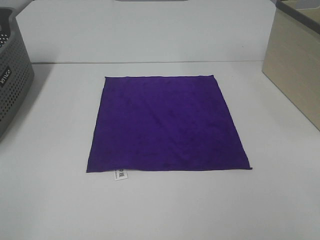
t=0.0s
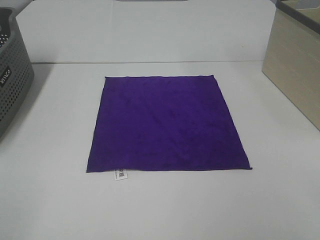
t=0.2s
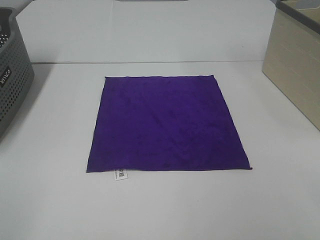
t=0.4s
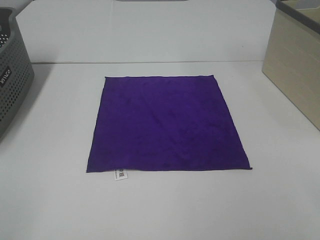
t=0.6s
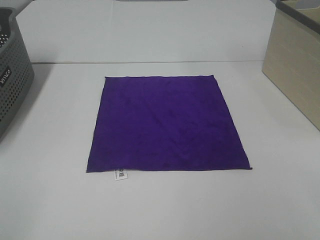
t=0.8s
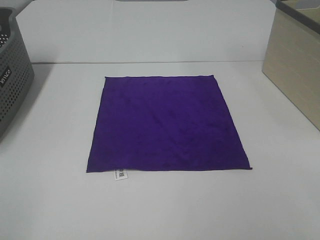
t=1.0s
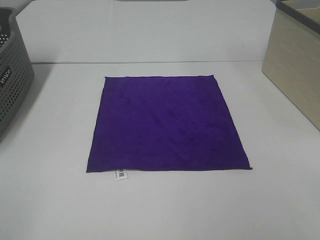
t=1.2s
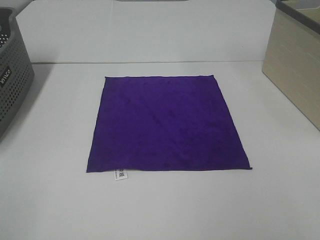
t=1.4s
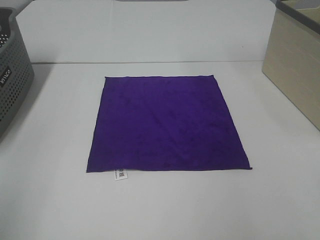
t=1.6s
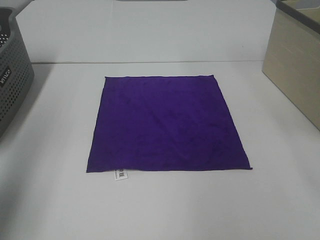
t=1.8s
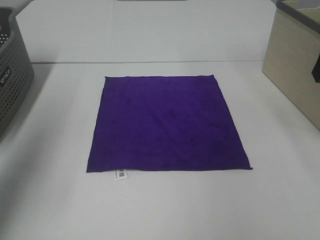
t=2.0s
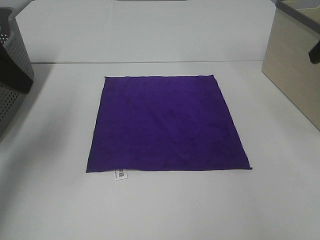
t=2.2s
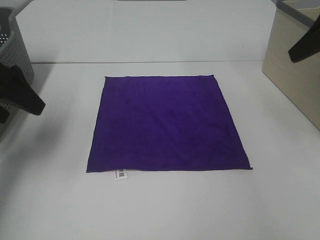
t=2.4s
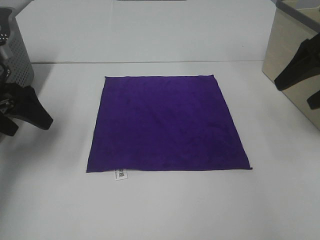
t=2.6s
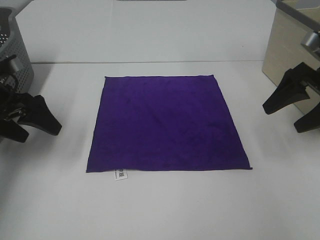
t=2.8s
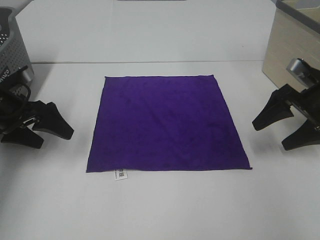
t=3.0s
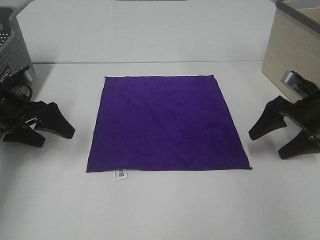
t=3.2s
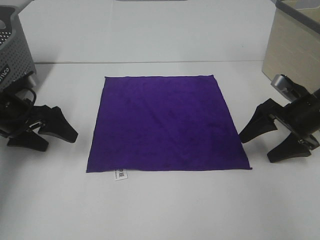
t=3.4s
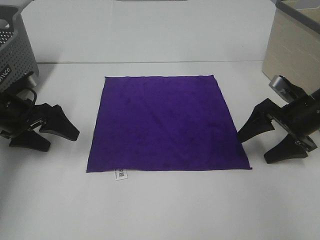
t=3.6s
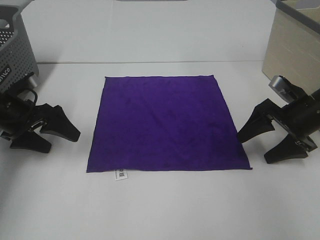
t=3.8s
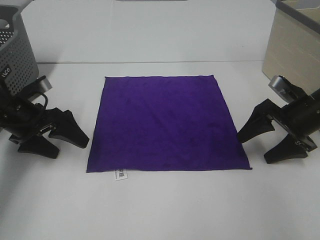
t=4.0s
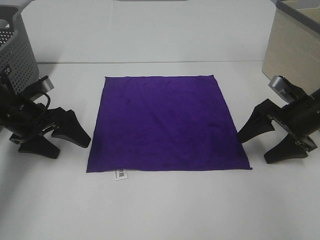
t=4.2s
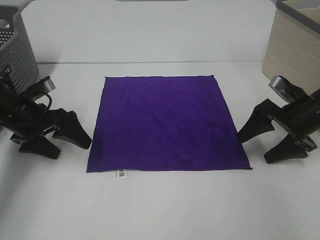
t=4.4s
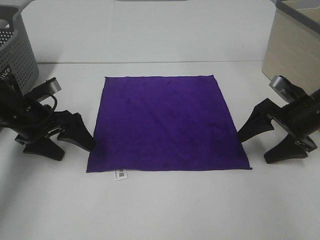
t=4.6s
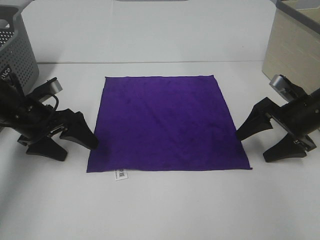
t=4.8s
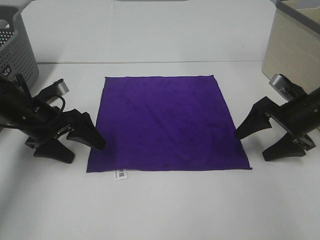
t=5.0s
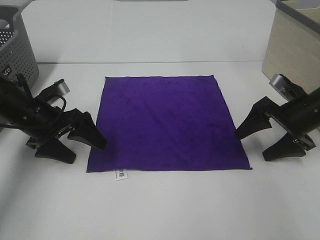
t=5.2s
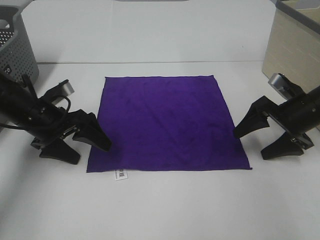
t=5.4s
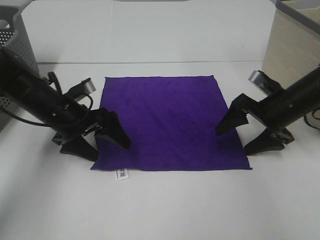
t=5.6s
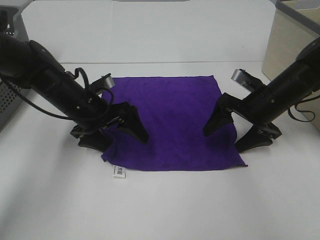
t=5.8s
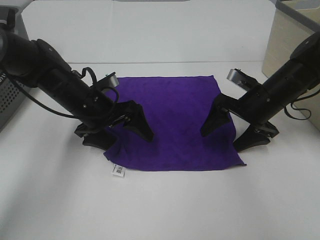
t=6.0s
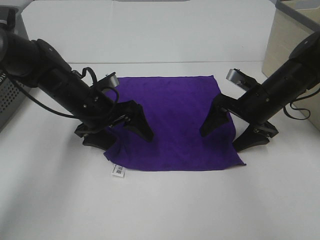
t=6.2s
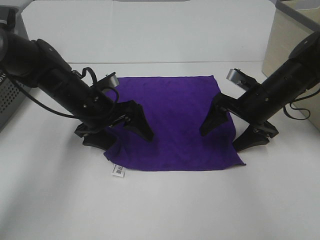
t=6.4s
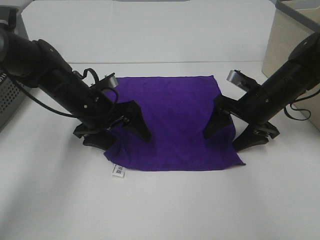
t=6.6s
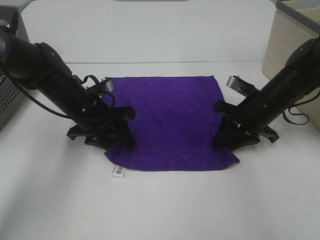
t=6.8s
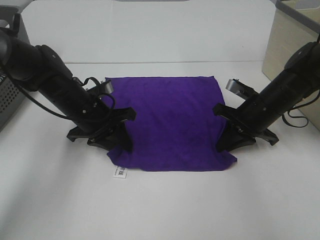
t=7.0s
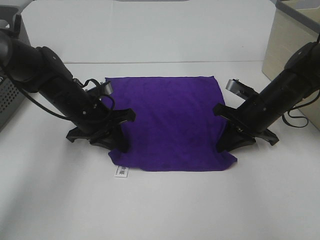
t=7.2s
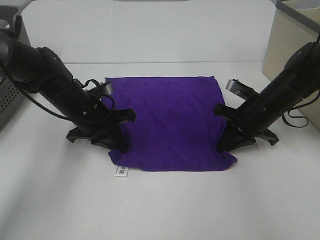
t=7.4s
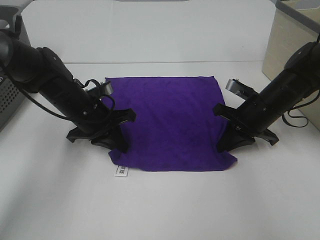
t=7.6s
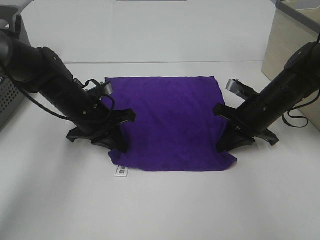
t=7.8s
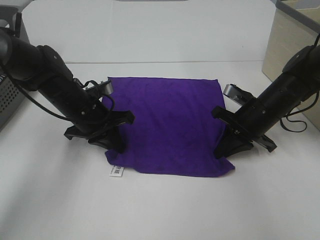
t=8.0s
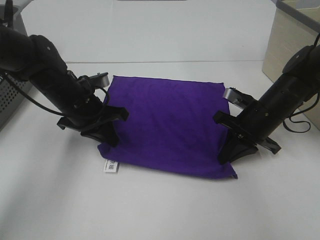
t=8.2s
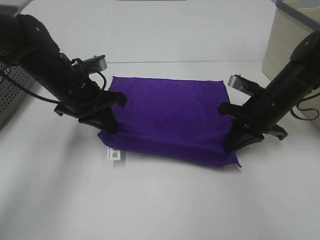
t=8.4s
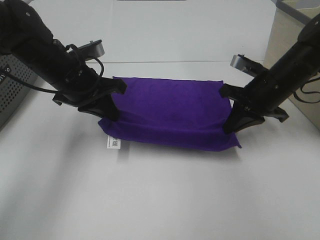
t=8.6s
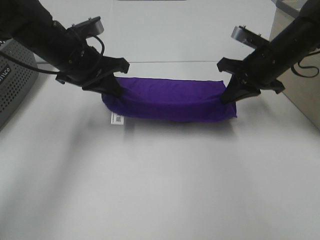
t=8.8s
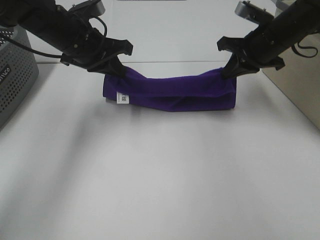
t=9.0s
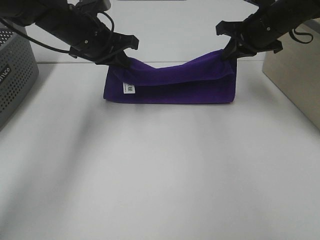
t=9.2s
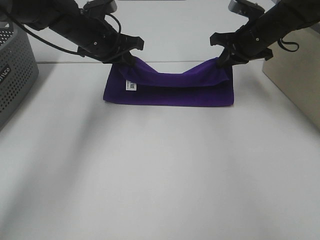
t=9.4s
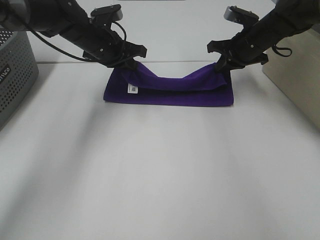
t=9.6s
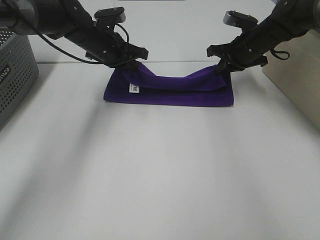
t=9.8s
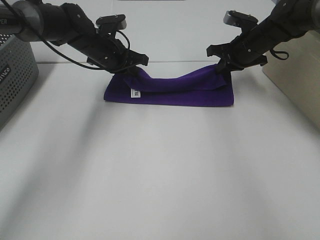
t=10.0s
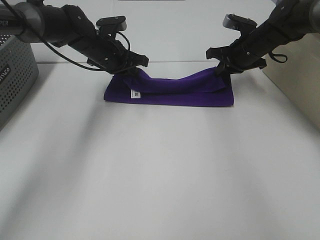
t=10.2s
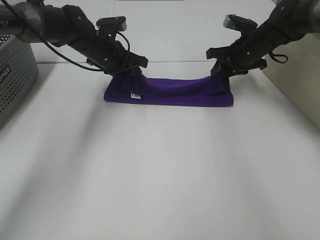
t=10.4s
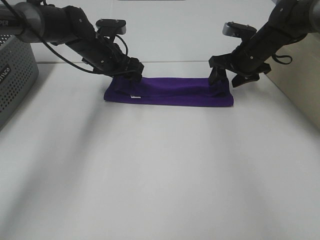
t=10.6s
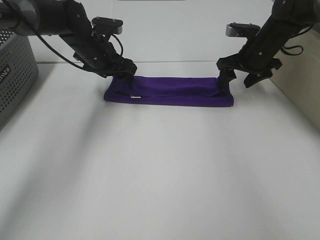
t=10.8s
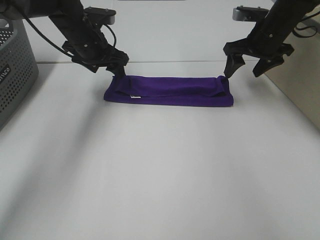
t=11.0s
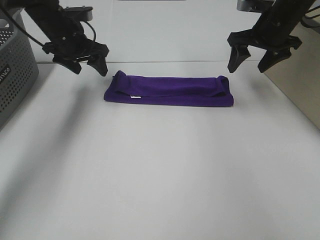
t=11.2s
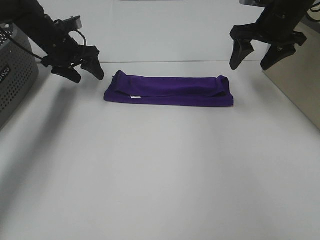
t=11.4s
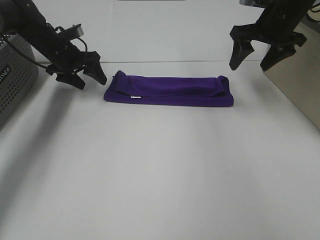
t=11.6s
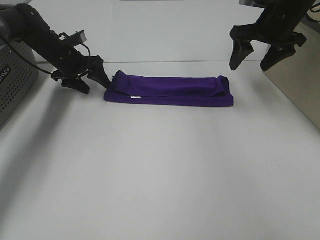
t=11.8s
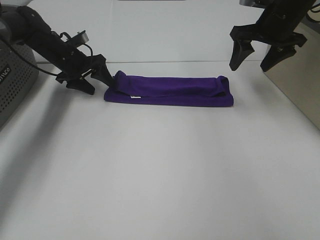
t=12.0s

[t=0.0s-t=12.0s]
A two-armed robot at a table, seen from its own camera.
Task of the whole recording: Fold towels.
Step, t=0.0s to t=7.4s: Left hand: grab the bottom left corner of purple towel.
Step, t=0.0s to t=7.4s: Right hand: grab the bottom right corner of purple towel.
Step, t=7.6s to t=10.4s: Left hand: fold the purple towel up.
Step, t=7.6s to t=10.4s: Right hand: fold the purple towel up.
t=1.6s to t=3.0s: The grippers both shift forward and downward by approximately 35 cm.
t=3.0s to t=4.4s: The grippers stay close to where they were, moving slightly.
t=4.4s to t=6.0s: The right gripper heads to the left, covering roughly 10 cm, while the left gripper heads to the right, covering some 10 cm.
t=6.0s to t=7.6s: The left gripper closes its fingers. Meanwhile the right gripper closes its fingers.
t=7.6s to t=9.0s: The left gripper travels upward by some 15 cm, while the right gripper moves upward and forward, roughly 15 cm.
t=9.0s to t=10.4s: Both grippers move forward and downward, about 10 cm. The right gripper opens its fingers. The left gripper opens its fingers.
t=10.4s to t=12.0s: The right gripper moves upward, some 10 cm, and opens up. Meanwhile the left gripper is displaced to the left by roughly 10 cm.

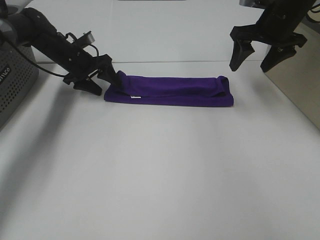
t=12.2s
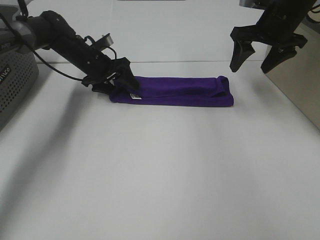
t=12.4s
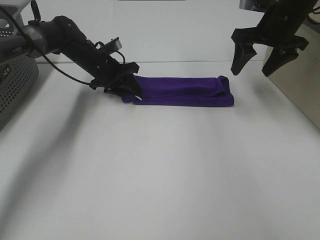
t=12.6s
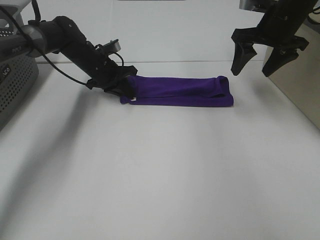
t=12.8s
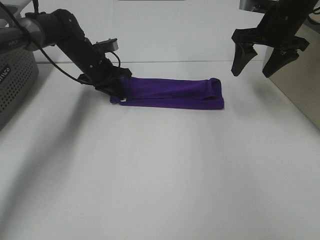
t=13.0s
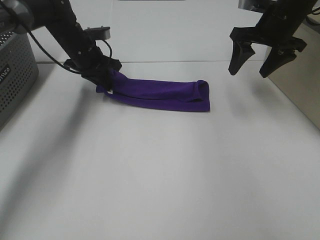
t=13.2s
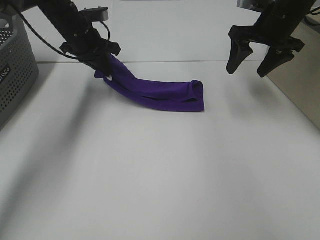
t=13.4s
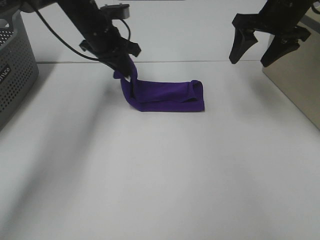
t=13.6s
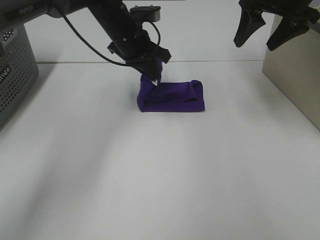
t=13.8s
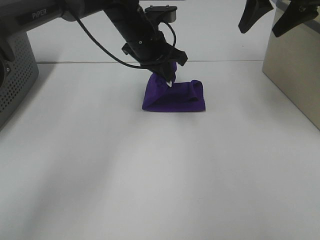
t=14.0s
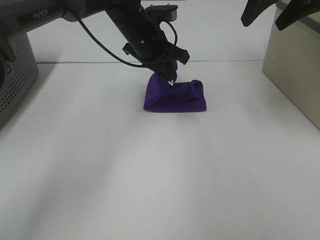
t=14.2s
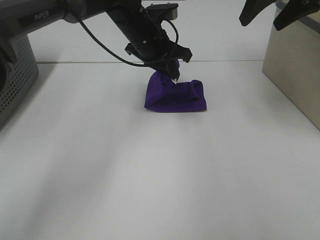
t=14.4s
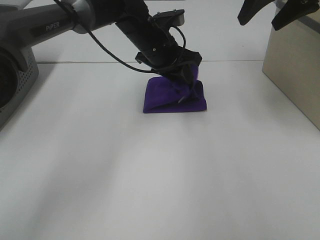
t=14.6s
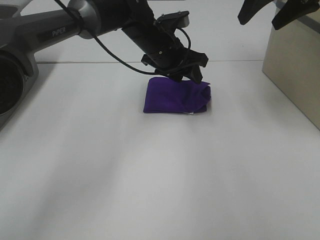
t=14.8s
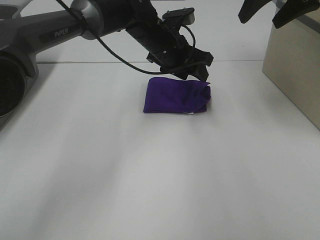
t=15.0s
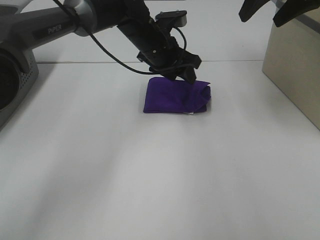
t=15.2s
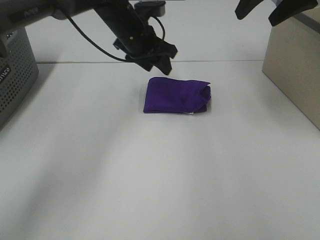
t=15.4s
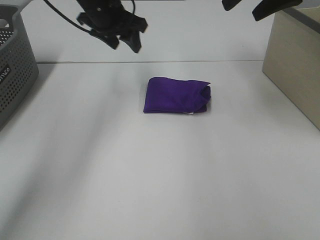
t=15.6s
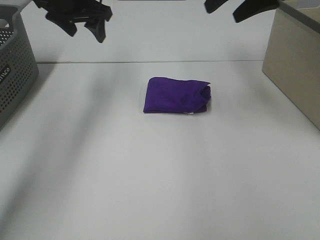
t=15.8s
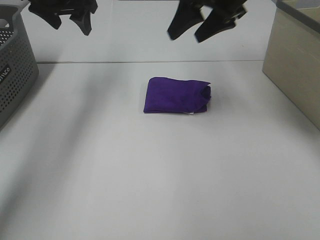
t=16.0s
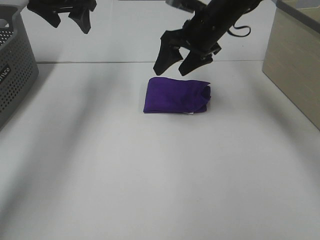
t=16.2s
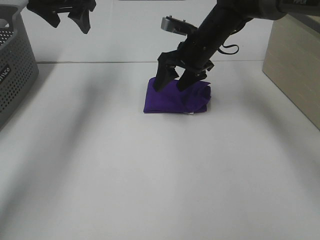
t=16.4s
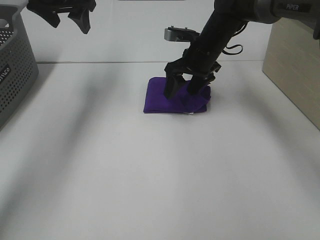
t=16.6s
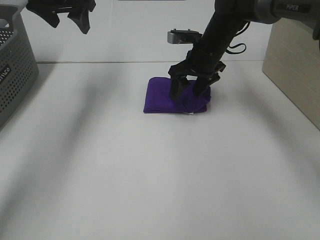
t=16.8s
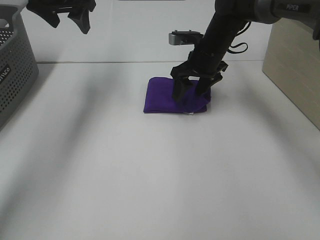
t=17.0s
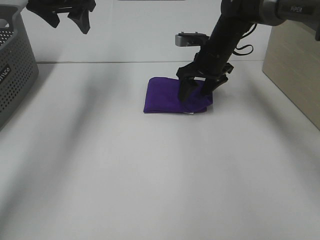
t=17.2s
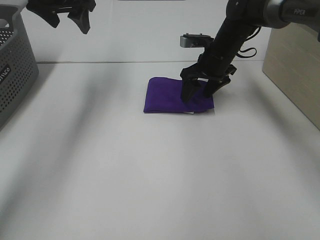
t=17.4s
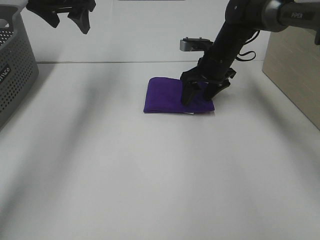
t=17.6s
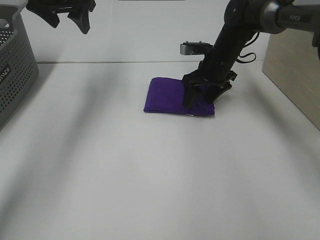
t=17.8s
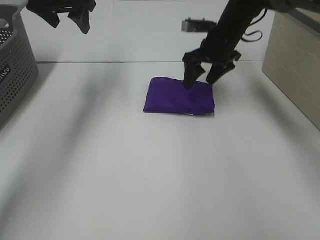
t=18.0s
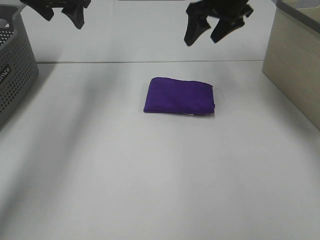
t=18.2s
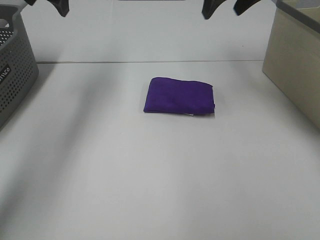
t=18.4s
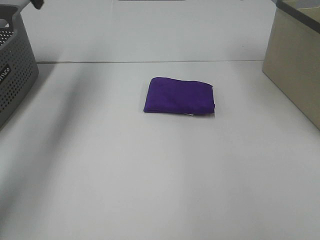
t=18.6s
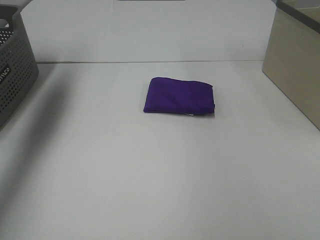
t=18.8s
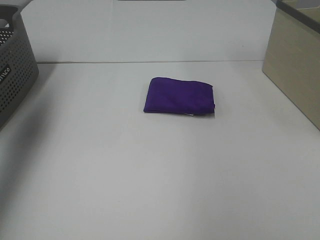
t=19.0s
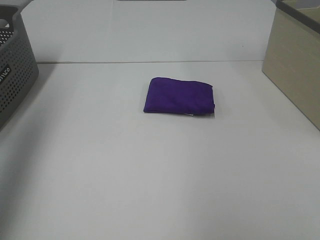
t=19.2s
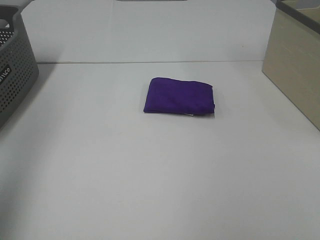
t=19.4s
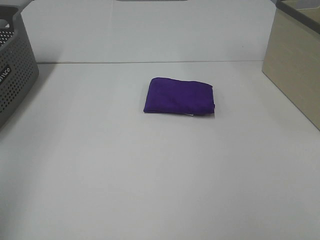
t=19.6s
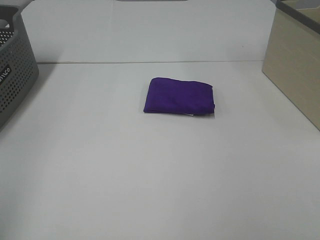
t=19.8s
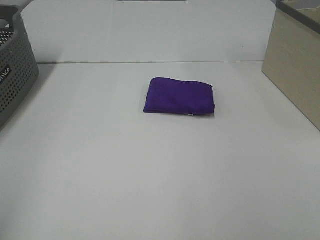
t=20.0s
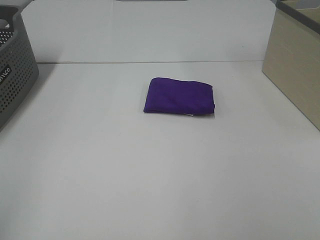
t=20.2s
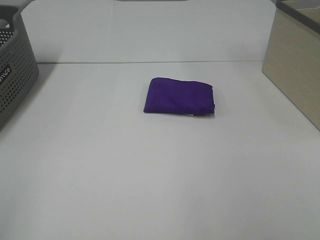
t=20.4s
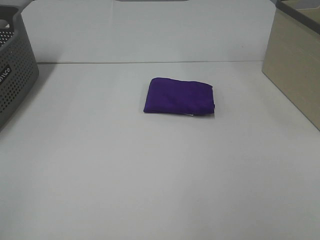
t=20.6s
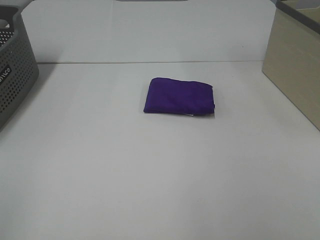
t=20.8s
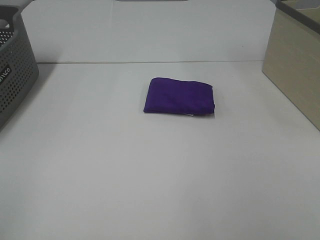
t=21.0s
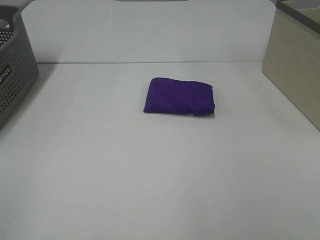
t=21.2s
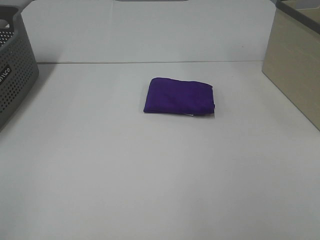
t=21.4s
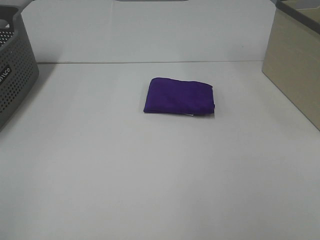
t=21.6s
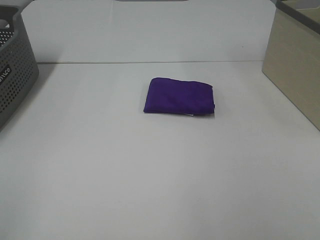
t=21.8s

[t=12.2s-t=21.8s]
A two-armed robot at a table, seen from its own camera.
Task of the whole recording: Fold towels.
Step, t=12.2s to t=14.6s: Left hand: fold the purple towel from left to right.
Step, t=14.8s to t=17.8s: Right hand: adjust the purple towel.
t=12.2s to t=13.8s: The right gripper is displaced upward by approximately 5 cm. The left gripper is displaced to the right and upward by about 20 cm, and closes its fingers.
t=13.8s to t=15.4s: The left gripper opens.
t=15.4s to t=17.0s: The right gripper goes roughly 20 cm downward and to the left. Meanwhile the left gripper heads to the left and upward, covering roughly 15 cm.
t=17.0s to t=18.6s: The right gripper goes some 25 cm upward and to the right. Meanwhile the left gripper moves to the left and upward, roughly 10 cm.
t=18.6s to t=20.2s: The two grippers go about 40 cm backward.
